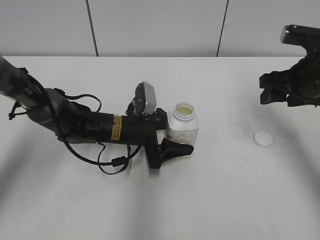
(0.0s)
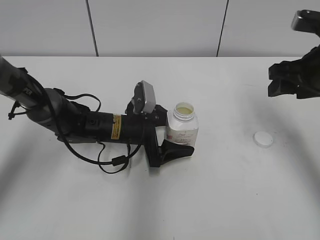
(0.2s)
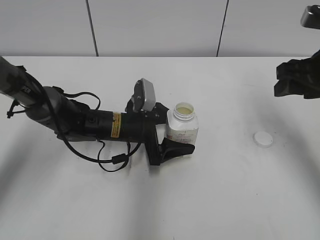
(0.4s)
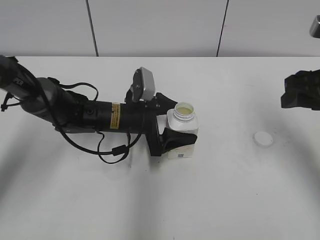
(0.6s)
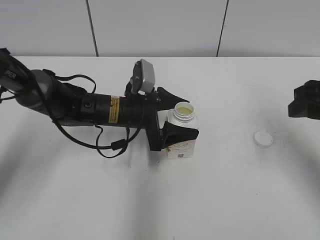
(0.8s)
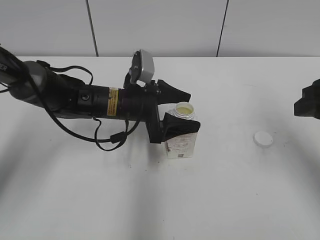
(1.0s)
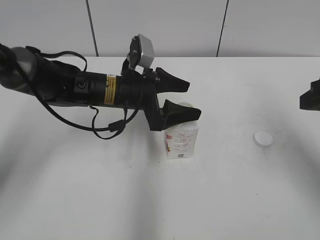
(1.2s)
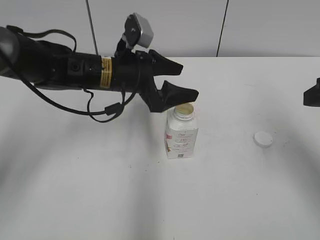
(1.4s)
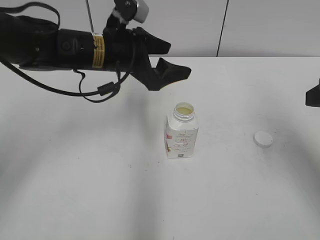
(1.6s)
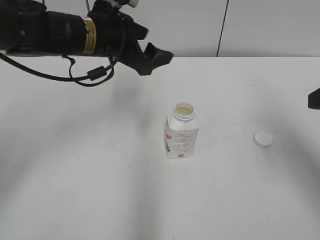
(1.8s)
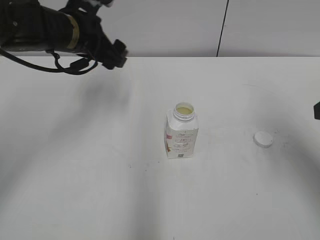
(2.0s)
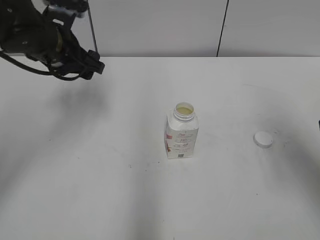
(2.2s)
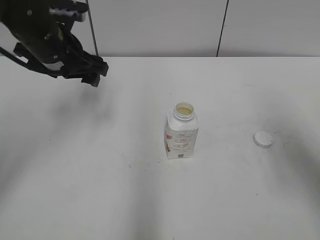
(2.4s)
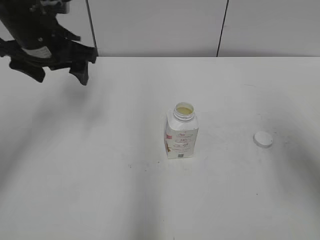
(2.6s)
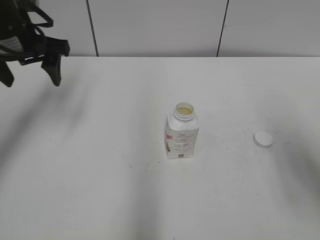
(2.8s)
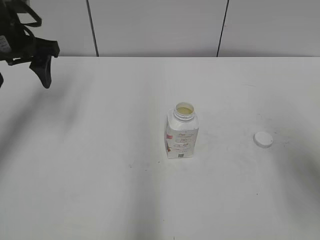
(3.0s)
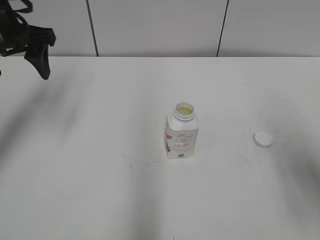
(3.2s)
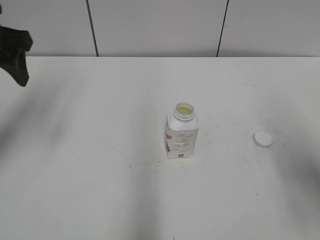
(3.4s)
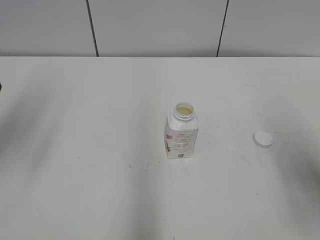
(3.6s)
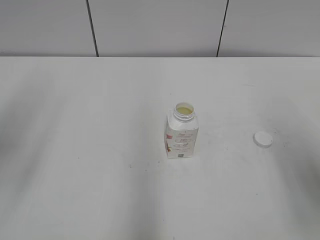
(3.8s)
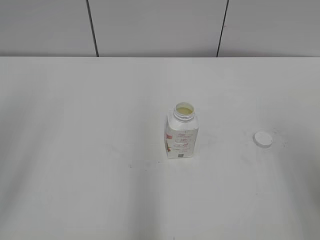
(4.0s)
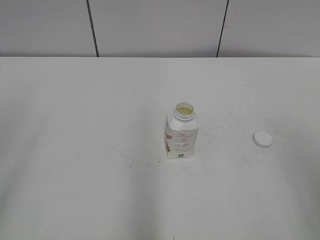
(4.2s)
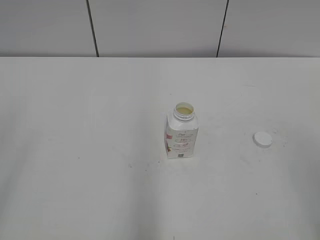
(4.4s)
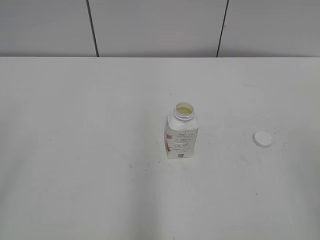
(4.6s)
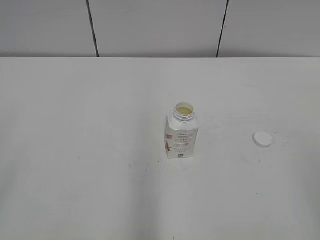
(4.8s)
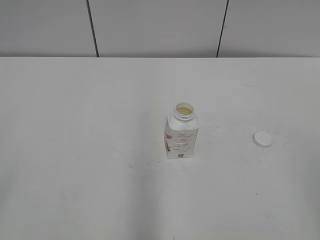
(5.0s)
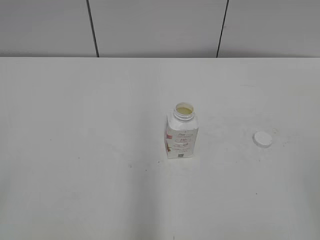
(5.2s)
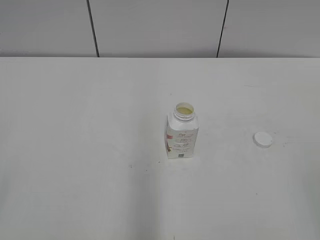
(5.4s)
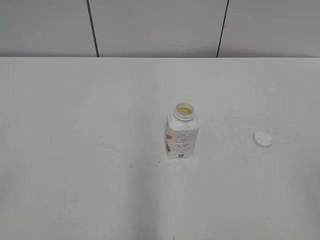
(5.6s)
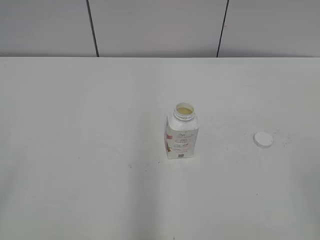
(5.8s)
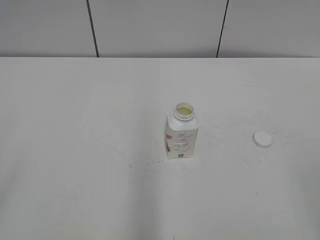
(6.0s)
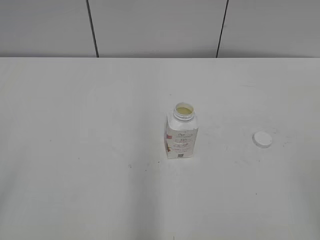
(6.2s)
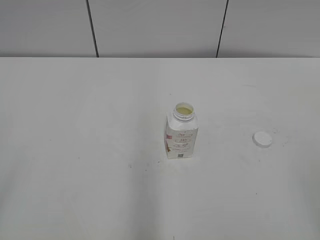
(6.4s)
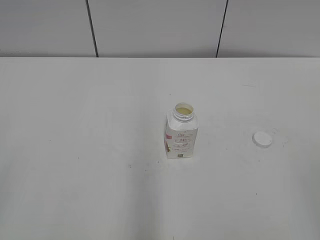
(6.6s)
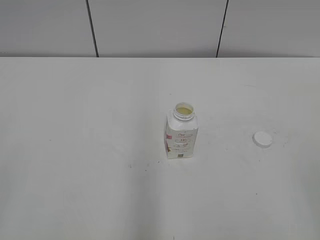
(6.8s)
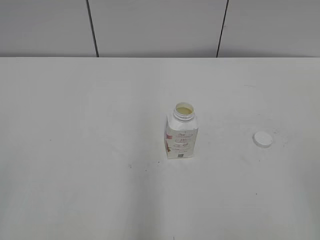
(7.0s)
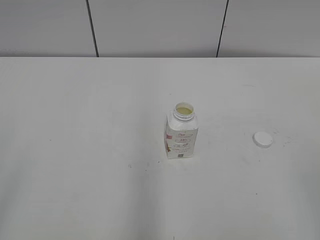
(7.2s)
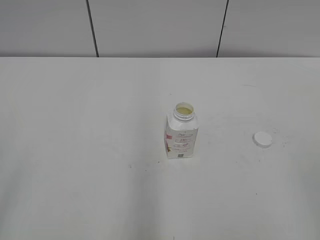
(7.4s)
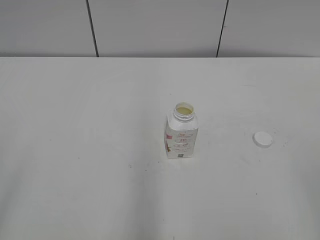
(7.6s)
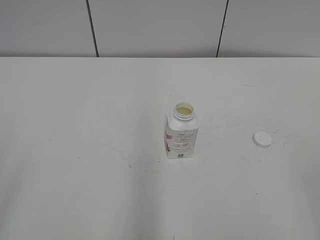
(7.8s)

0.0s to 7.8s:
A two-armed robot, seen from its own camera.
Step, 0.0s to 1.0s: Place the bottle on the table with the left gripper.
0.0s to 1.6s: The right gripper travels backward and upward by roughly 15 cm. The left gripper moves upward, approximately 15 cm.
1.6s to 3.2s: The left gripper travels to the left and upward by some 20 cm.
3.2s to 4.6s: The left gripper shifts some 30 cm backward. Meanwhile the right gripper heads backward, covering some 15 cm.
